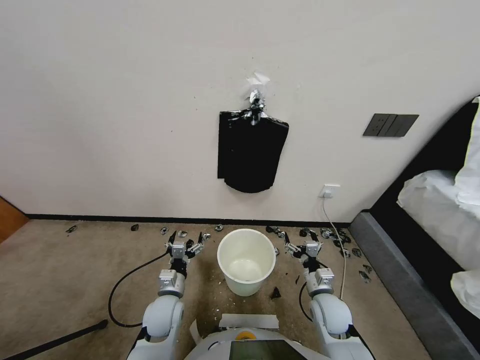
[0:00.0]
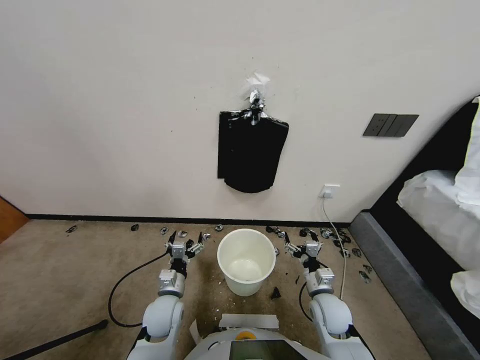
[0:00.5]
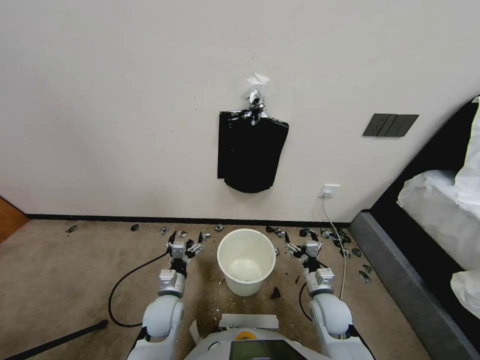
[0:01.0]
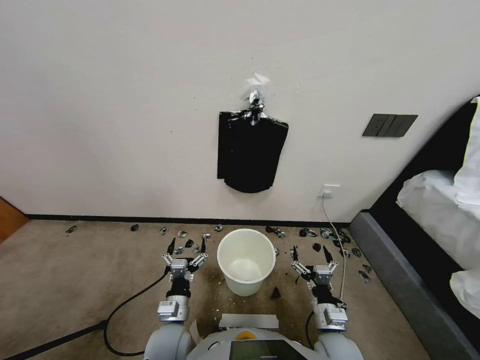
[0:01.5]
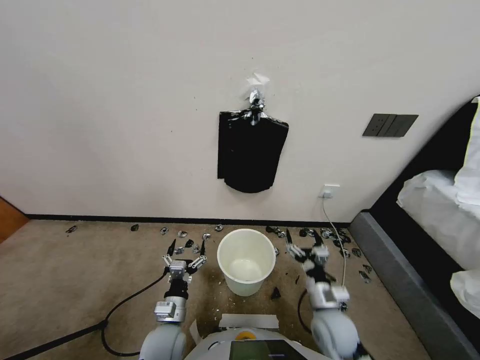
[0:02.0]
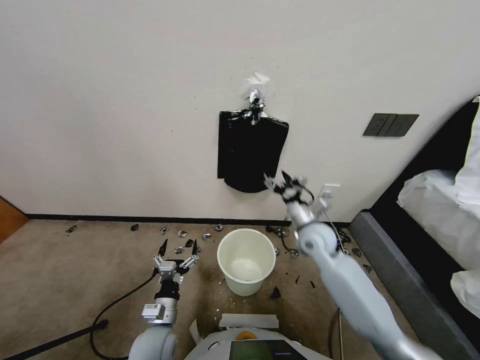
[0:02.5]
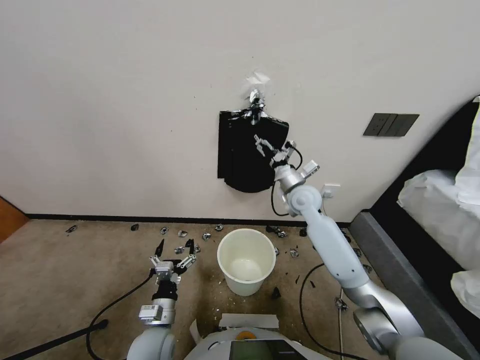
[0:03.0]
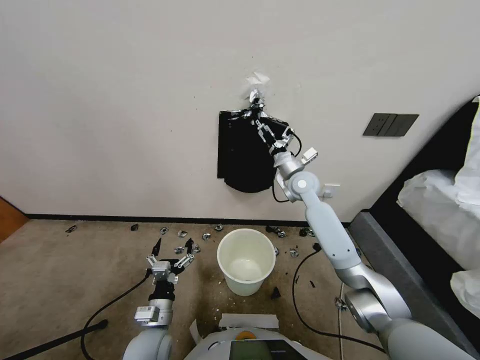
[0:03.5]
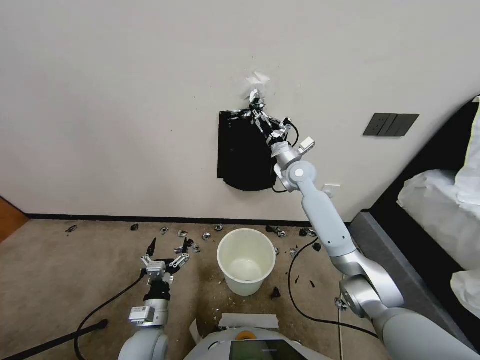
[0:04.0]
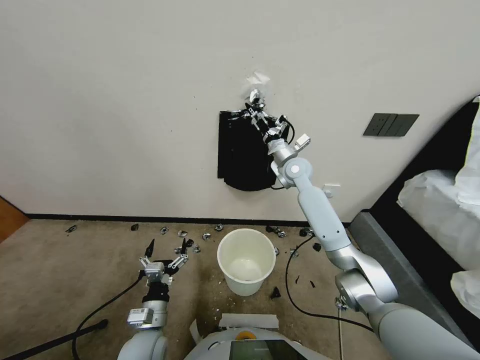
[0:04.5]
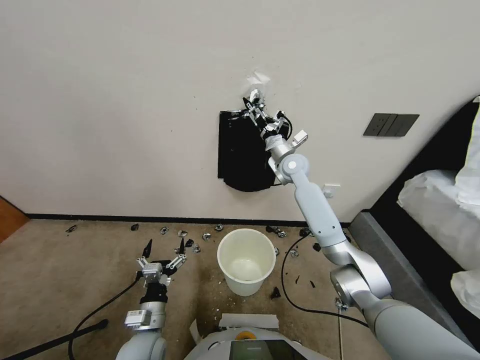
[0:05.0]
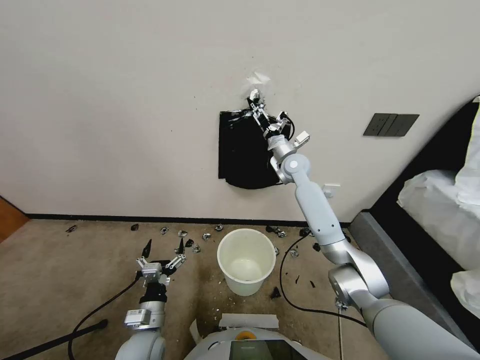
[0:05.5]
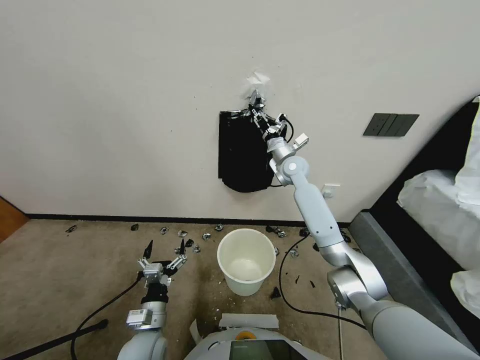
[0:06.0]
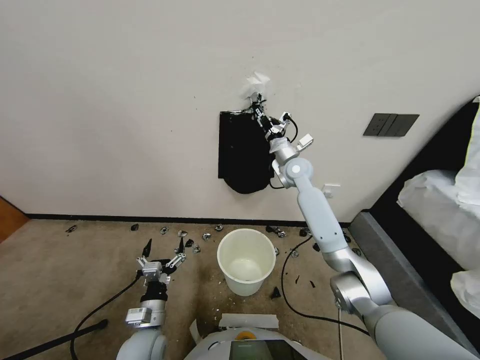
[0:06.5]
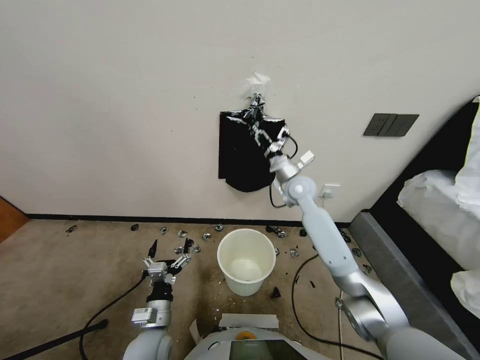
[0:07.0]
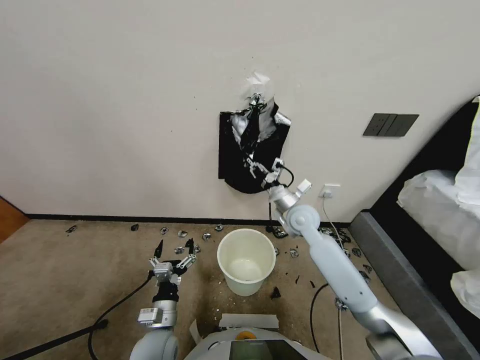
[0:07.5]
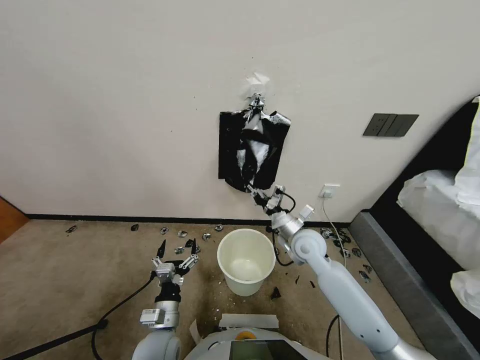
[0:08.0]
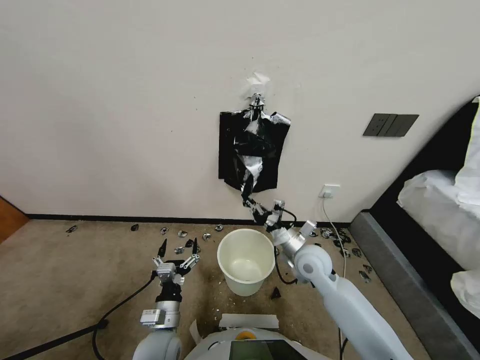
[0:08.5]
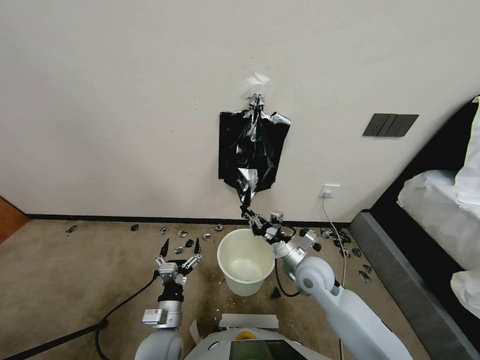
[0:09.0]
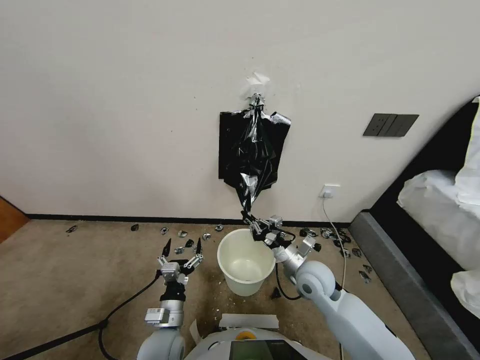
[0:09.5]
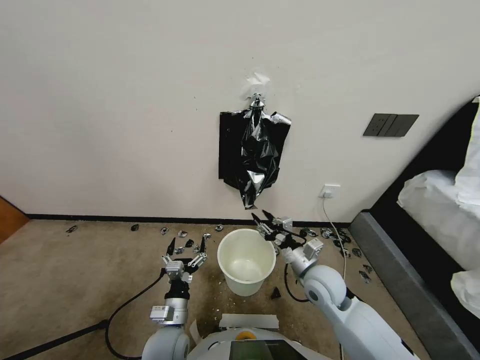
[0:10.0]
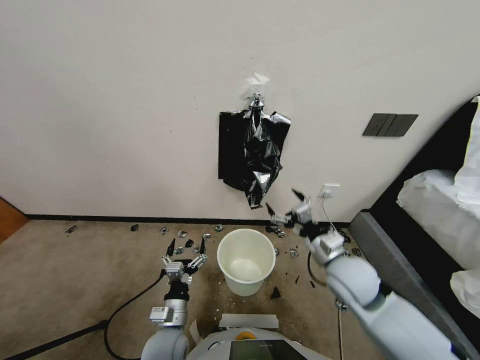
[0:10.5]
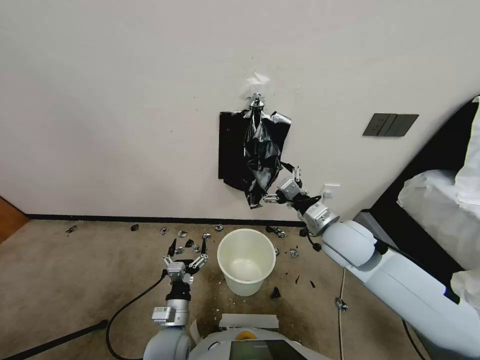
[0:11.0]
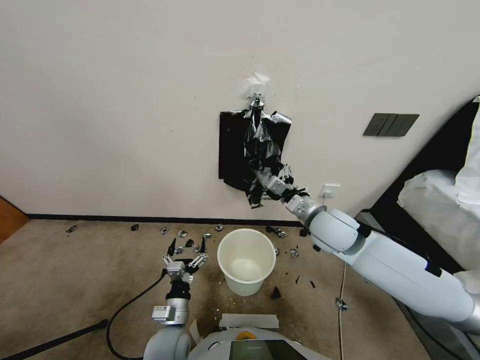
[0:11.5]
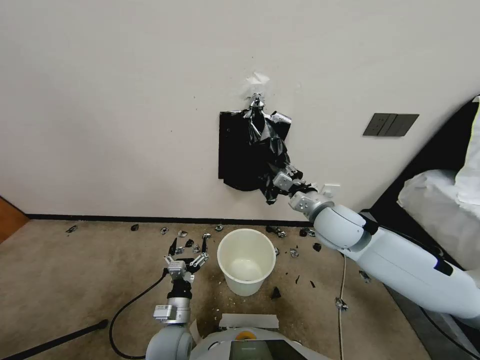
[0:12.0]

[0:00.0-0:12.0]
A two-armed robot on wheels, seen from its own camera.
Task of the whole recording: Place a trash bag onto the trash bin.
0:02.0 to 0:04.0: The right gripper moves forward and upward, roughly 40 cm.
0:04.0 to 0:06.0: The right gripper closes its fingers.
0:06.0 to 0:08.0: The right gripper heads backward and downward, covering some 25 cm.
0:08.0 to 0:10.0: The right gripper heads backward, covering approximately 10 cm, and opens its fingers.
0:10.0 to 0:12.0: The right gripper travels upward and forward by approximately 15 cm, and closes up.

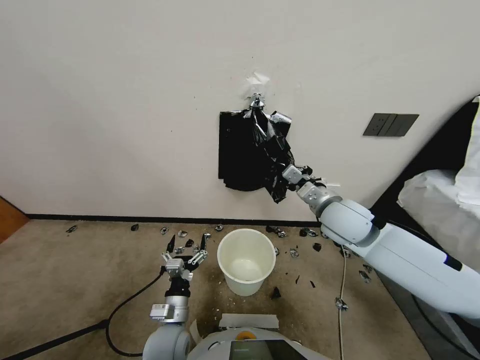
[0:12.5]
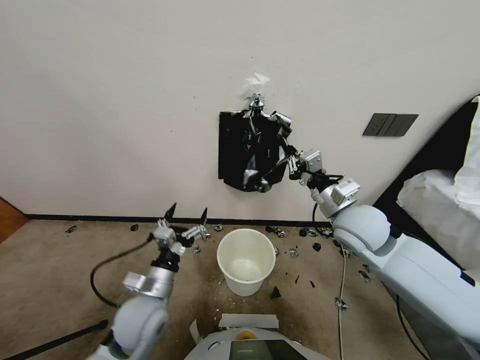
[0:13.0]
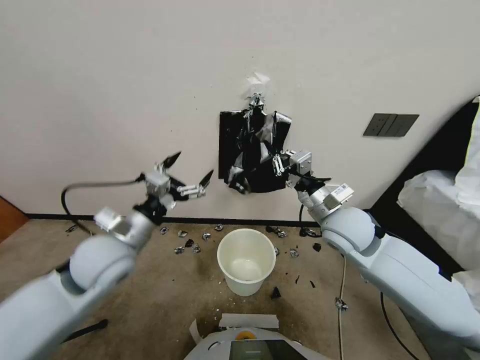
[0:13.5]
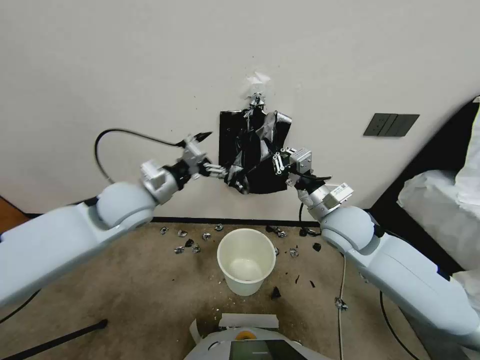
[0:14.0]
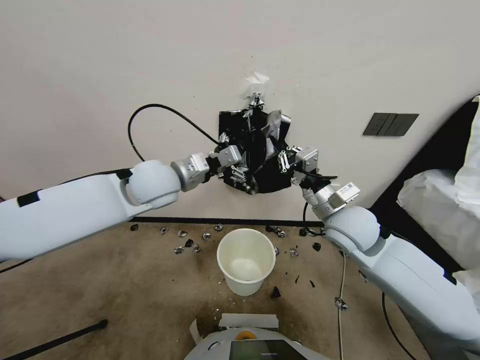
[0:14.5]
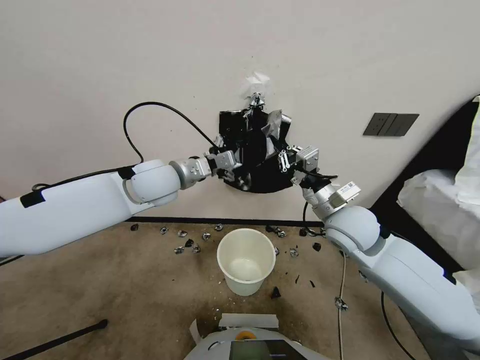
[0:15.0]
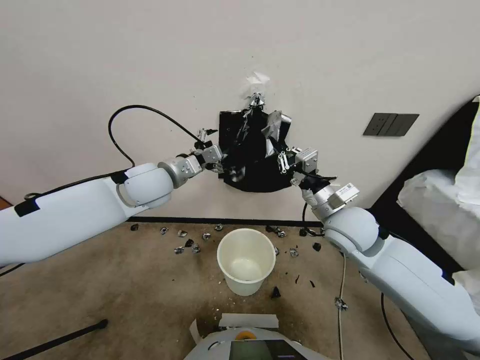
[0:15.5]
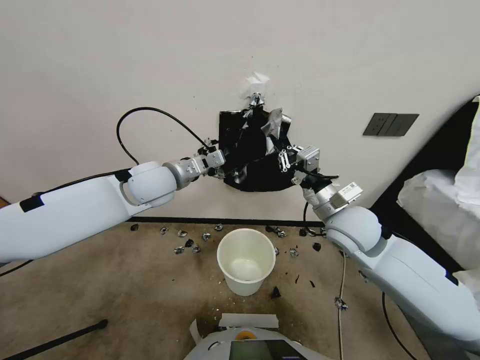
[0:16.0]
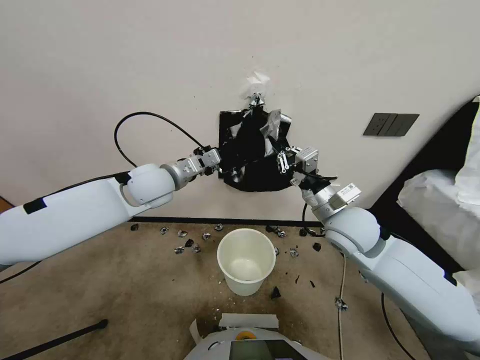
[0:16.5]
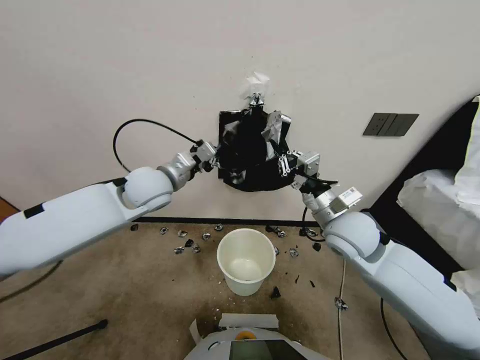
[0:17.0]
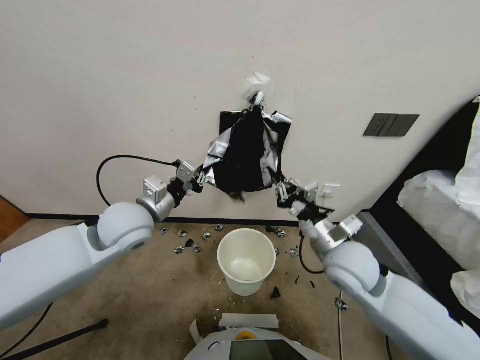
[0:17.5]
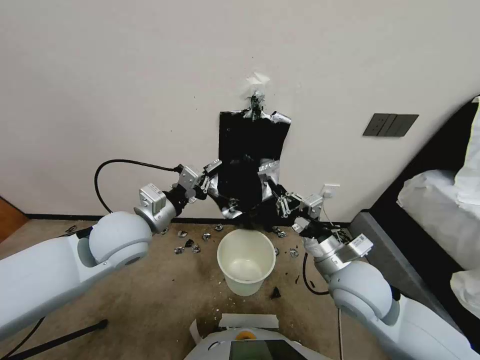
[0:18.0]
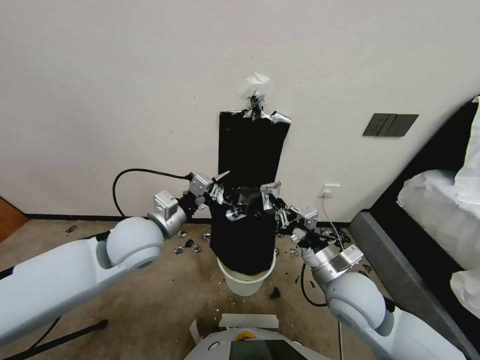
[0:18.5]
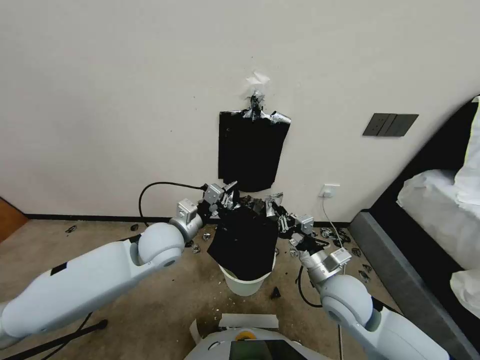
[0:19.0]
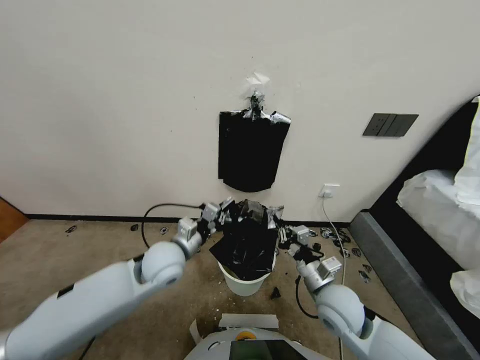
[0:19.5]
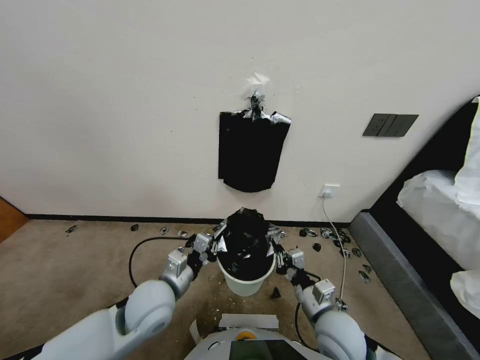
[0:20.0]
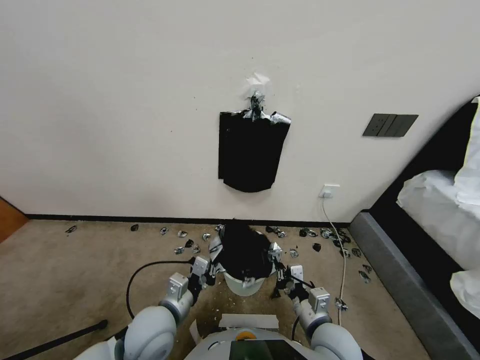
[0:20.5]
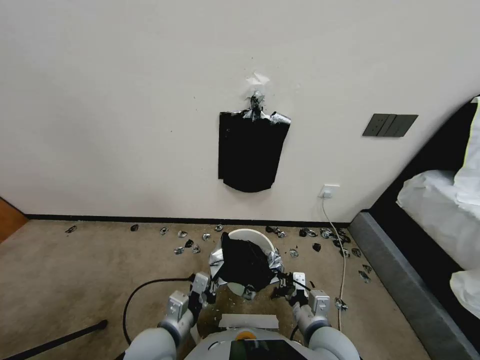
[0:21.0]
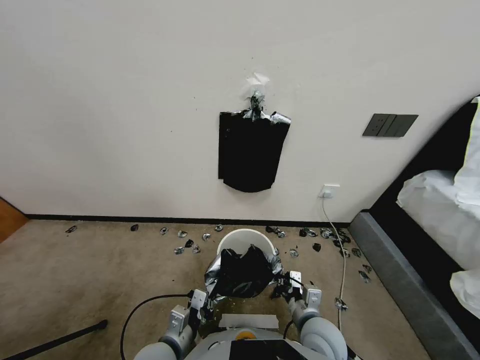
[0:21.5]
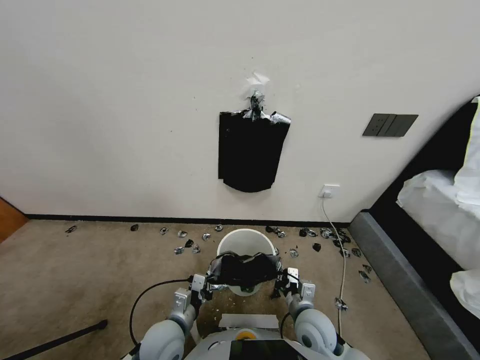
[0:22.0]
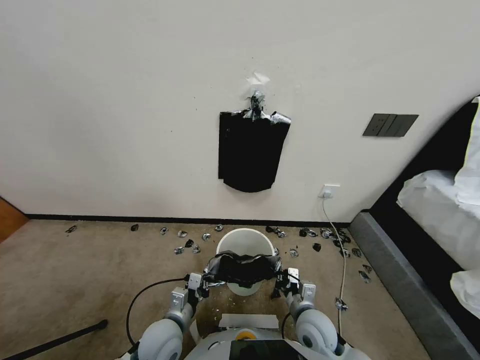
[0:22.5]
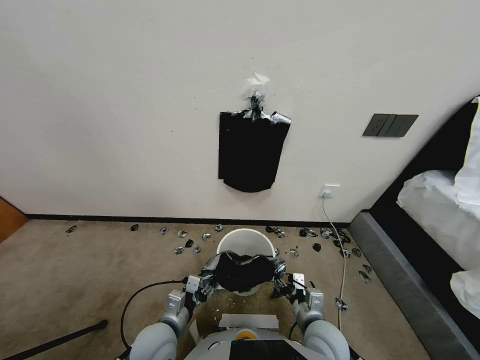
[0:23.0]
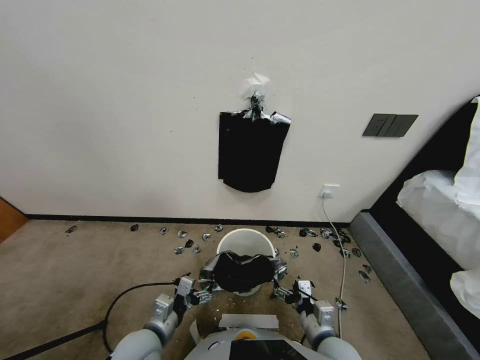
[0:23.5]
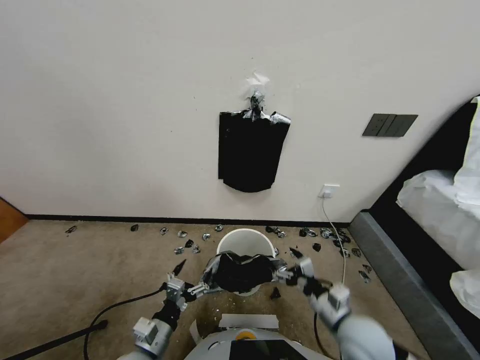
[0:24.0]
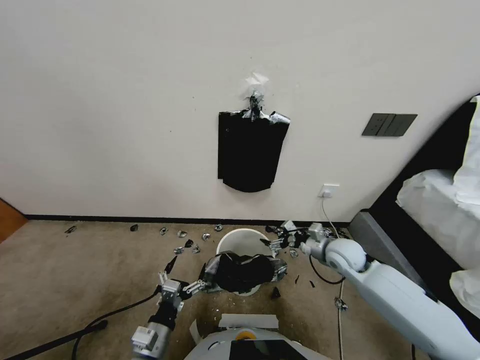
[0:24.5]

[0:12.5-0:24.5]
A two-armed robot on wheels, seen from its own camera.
Task of the whole recording: Place a trash bag onto the trash bin.
0:12.5 to 0:14.5: The left gripper heads upward and forward, covering about 40 cm.
0:14.5 to 0:16.5: The left gripper closes.
0:16.5 to 0:18.5: The two grippers go some 15 cm backward and downward.
0:18.5 to 0:20.5: The right gripper heads downward and backward, covering approximately 10 cm. The left gripper shifts about 20 cm downward and backward.
0:20.5 to 0:22.5: The two grippers go roughly 5 cm downward.
0:22.5 to 0:24.5: The left gripper is displaced backward by approximately 5 cm, and opens up. The right gripper travels forward and to the right by some 25 cm, and opens its fingers.

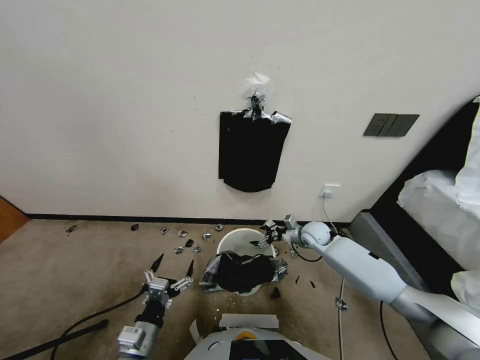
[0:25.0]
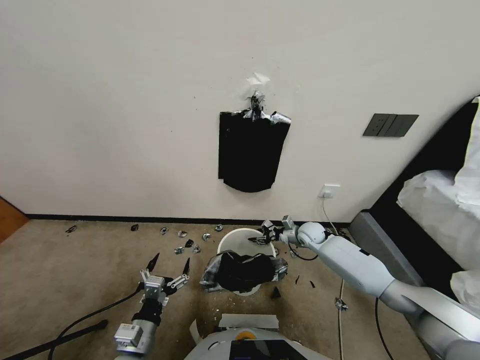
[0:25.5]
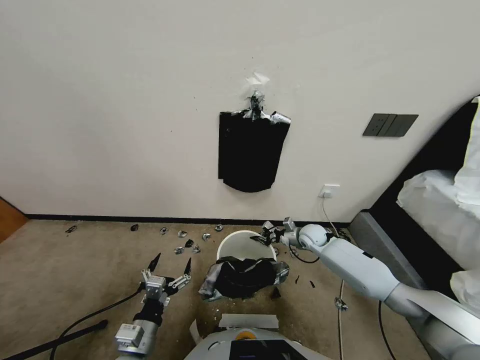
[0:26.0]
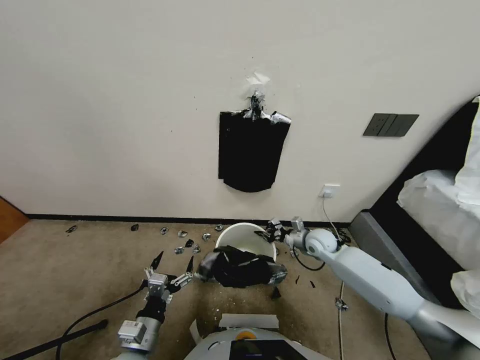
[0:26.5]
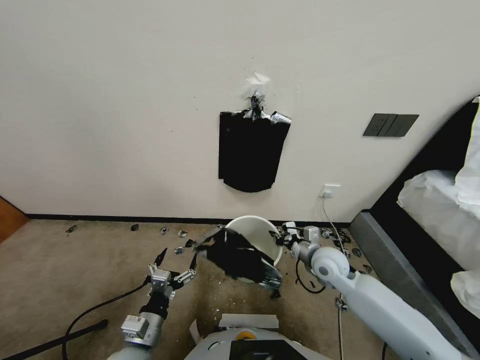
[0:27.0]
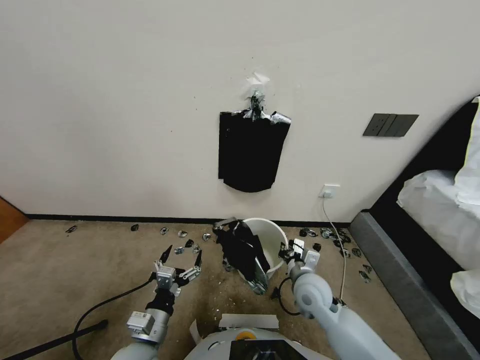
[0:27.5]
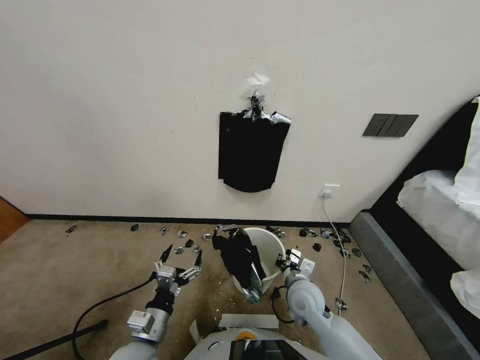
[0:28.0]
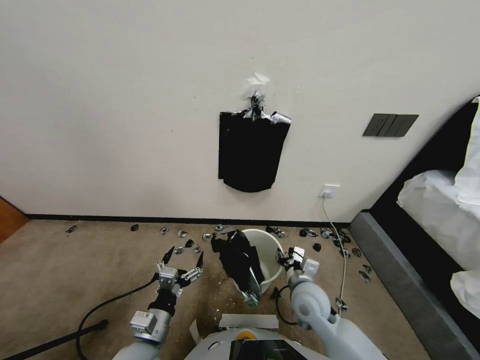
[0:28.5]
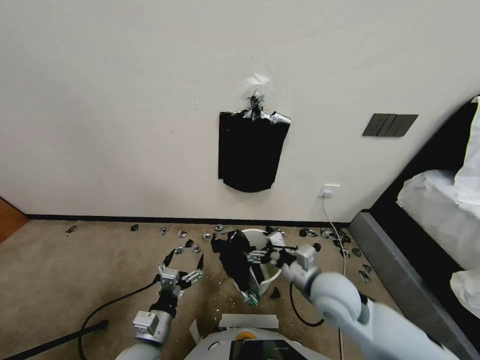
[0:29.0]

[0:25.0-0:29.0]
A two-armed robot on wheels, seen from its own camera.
Task of the whole recording: Place a trash bag onto the trash bin.
0:25.0 to 0:27.0: The right gripper is displaced backward by approximately 15 cm, and closes.
0:27.0 to 0:29.0: The right gripper moves upward and to the left, approximately 10 cm, and opens.
